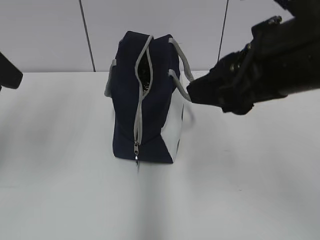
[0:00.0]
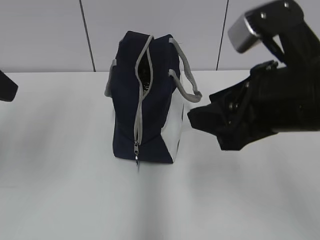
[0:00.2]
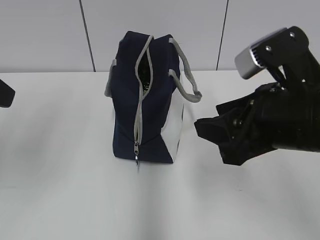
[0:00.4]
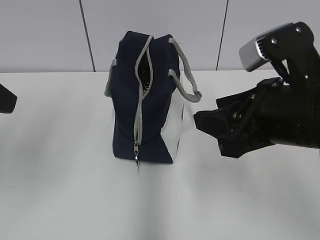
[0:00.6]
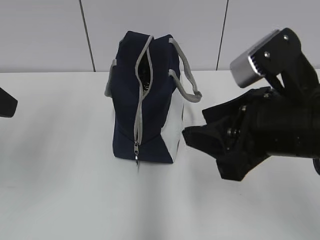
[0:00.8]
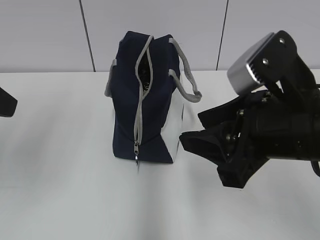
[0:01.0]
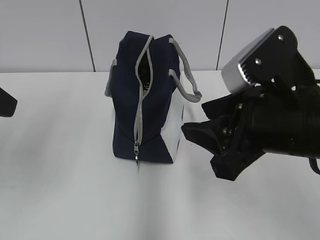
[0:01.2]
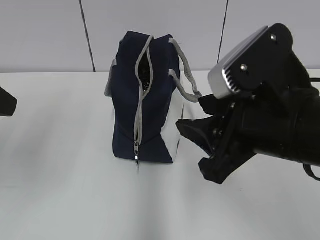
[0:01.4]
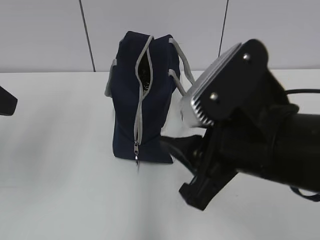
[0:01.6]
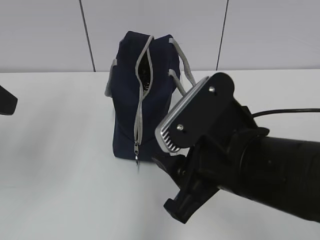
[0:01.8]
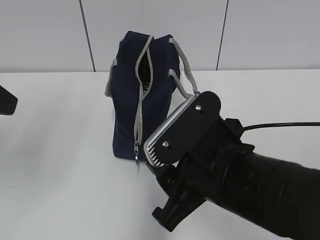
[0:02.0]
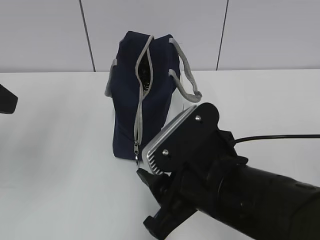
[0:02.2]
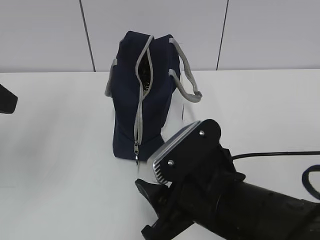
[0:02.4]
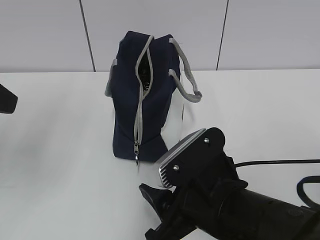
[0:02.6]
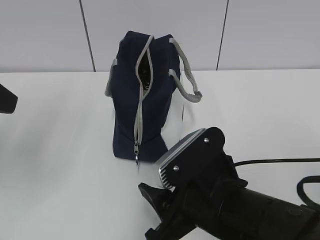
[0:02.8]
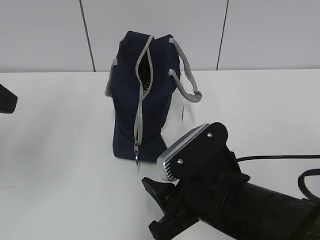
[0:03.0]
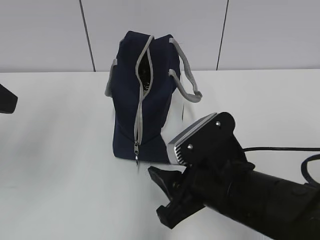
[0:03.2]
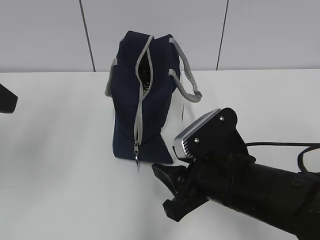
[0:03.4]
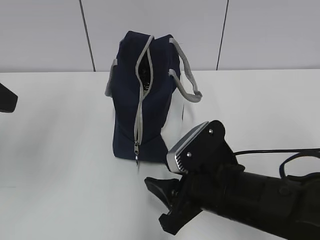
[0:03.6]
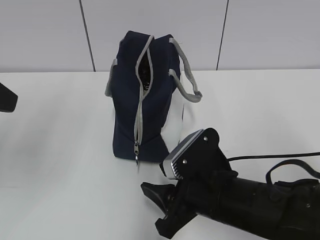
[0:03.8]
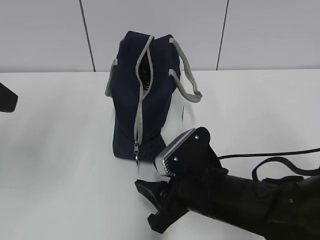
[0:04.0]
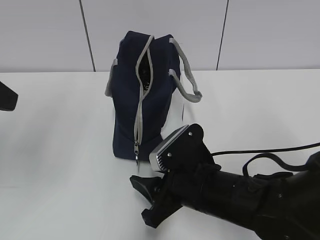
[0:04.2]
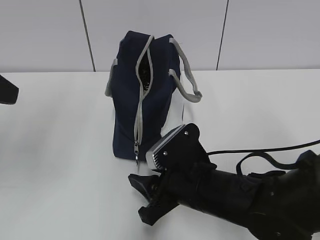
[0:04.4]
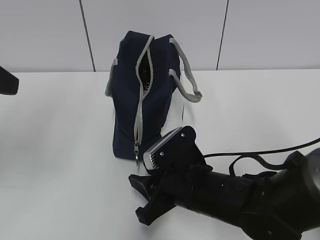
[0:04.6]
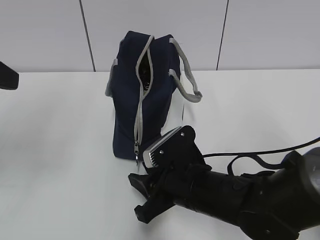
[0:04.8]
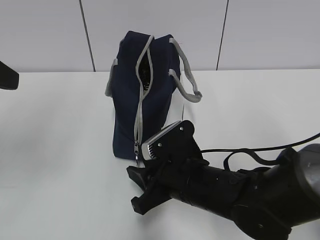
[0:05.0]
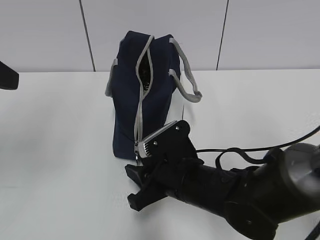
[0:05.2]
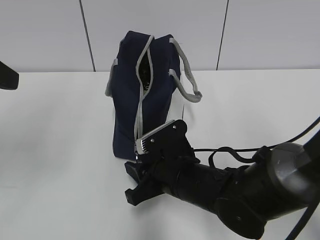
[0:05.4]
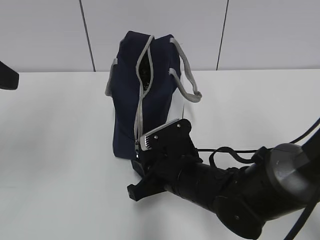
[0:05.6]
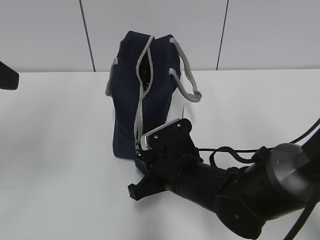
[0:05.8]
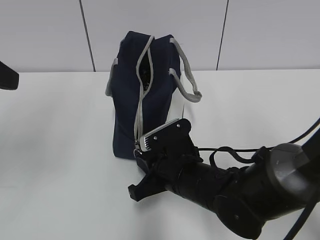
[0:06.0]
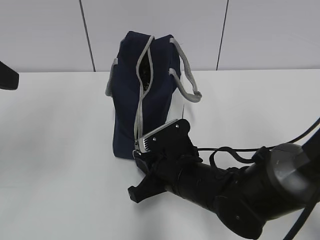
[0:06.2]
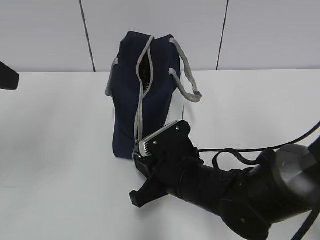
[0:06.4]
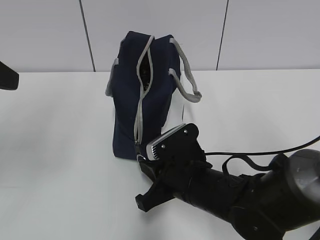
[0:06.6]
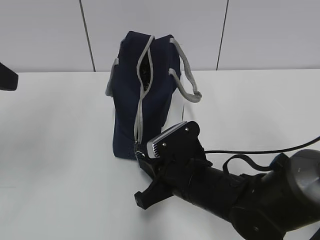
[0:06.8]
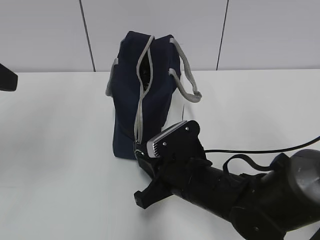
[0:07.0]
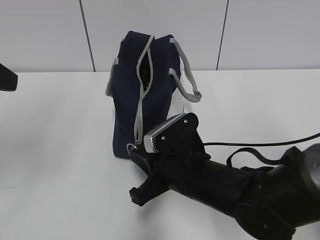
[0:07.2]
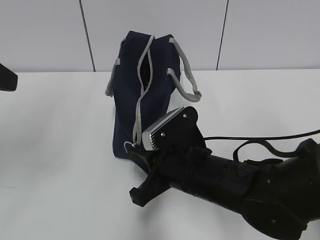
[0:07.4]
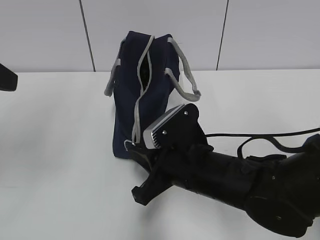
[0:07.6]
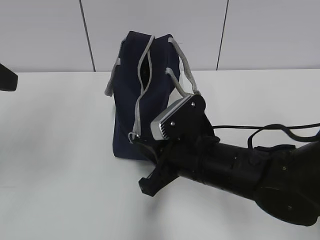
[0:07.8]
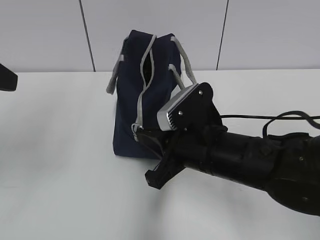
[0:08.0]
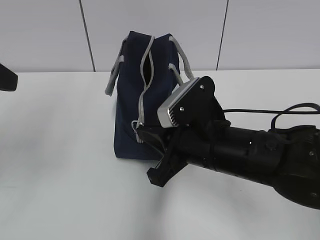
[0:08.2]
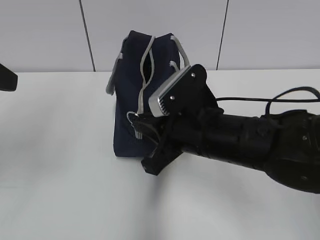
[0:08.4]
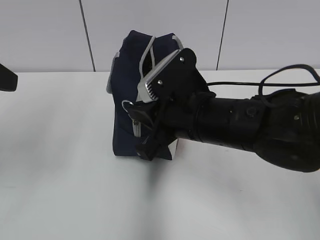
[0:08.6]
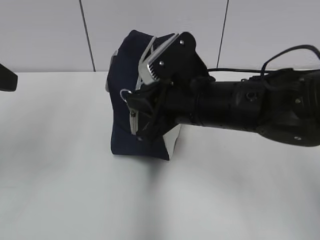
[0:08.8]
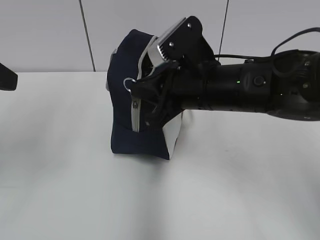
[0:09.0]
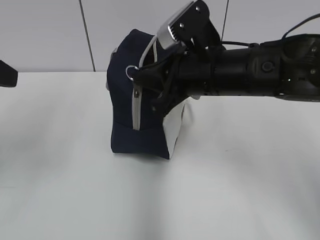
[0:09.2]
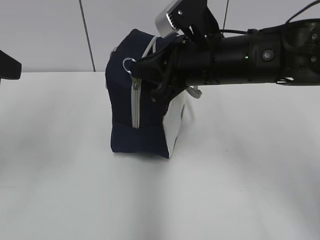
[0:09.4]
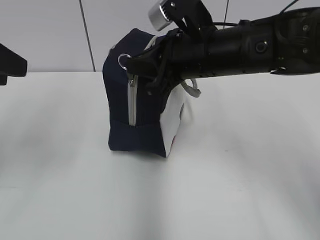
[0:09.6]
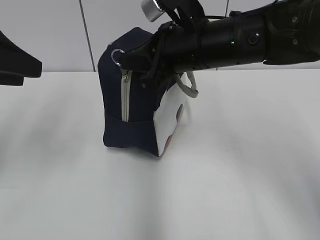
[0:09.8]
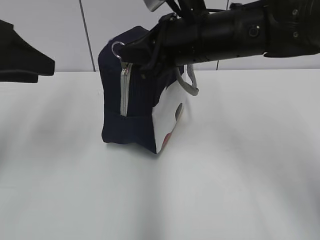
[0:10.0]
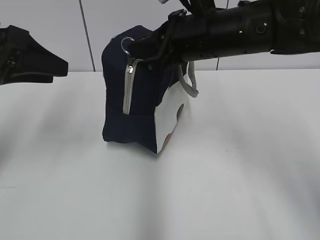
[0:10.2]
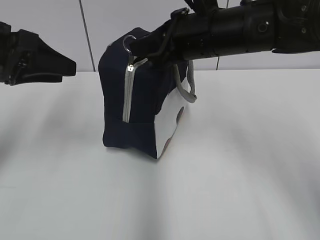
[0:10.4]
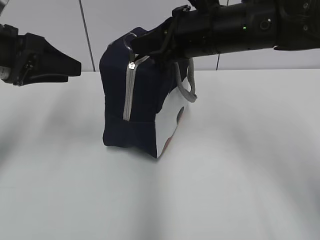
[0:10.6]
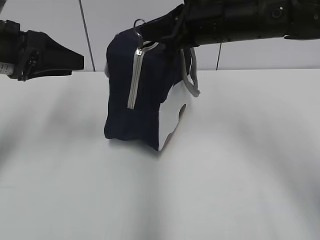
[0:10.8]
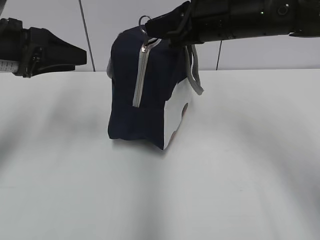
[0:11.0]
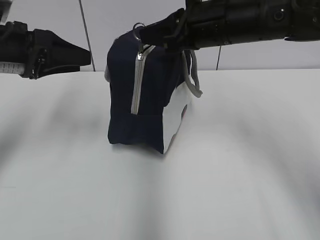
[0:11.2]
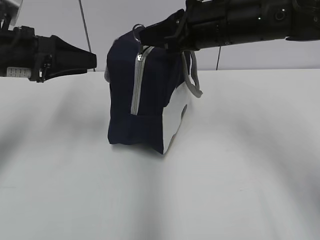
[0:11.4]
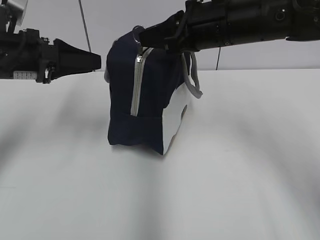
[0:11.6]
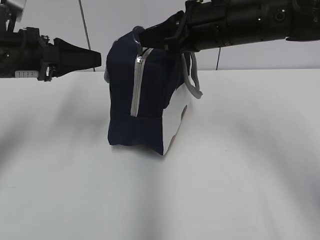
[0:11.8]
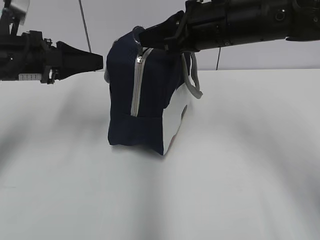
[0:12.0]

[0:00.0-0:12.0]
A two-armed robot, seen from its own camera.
0:00.0 to 0:01.6: The right gripper is displaced downward by some 5 cm.
0:01.6 to 0:03.0: The right gripper is displaced downward by some 10 cm.
0:03.0 to 0:04.4: The right gripper heads forward and downward, covering about 10 cm.
0:04.4 to 0:06.0: The right gripper closes its fingers.
0:06.0 to 0:07.6: The right gripper shifts by approximately 5 cm.
0:07.6 to 0:09.0: The right gripper shifts about 10 cm upward and forward.
0:09.0 to 0:10.4: The right gripper shifts some 5 cm forward, while the left gripper moves forward and downward, some 10 cm.
0:10.4 to 0:12.0: The left gripper changes place by roughly 5 cm.

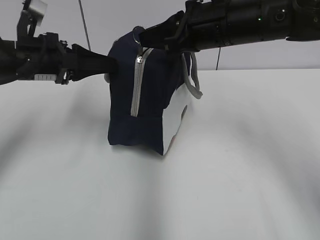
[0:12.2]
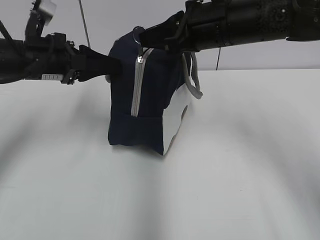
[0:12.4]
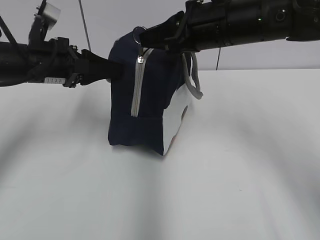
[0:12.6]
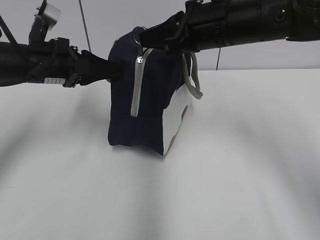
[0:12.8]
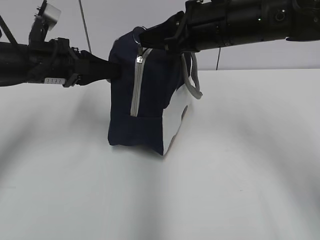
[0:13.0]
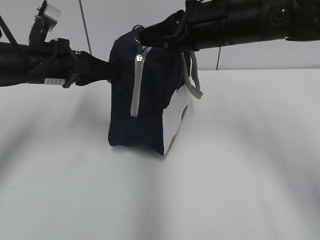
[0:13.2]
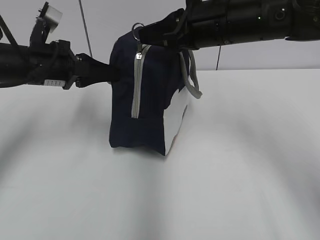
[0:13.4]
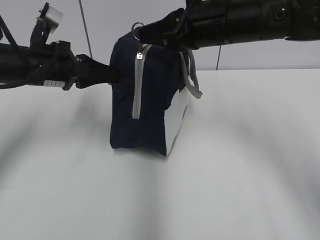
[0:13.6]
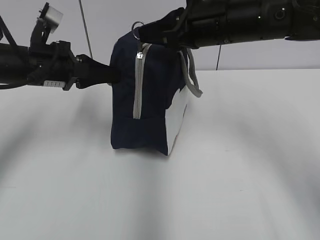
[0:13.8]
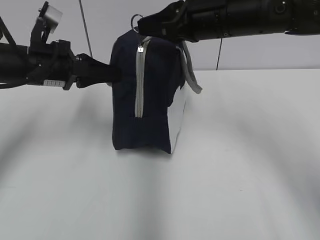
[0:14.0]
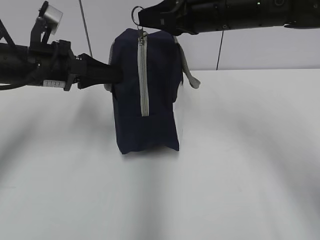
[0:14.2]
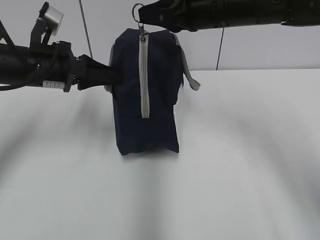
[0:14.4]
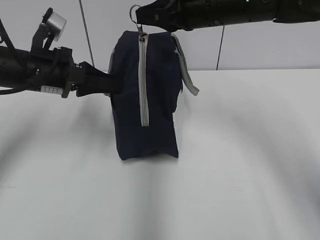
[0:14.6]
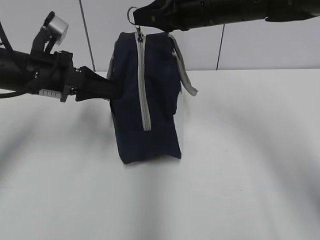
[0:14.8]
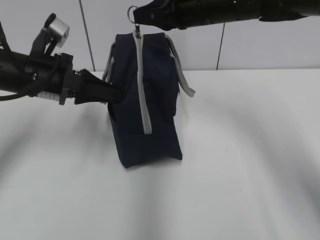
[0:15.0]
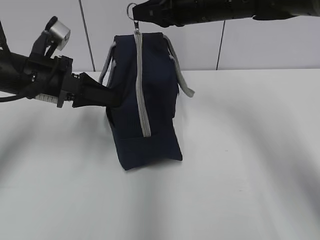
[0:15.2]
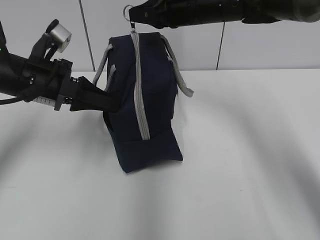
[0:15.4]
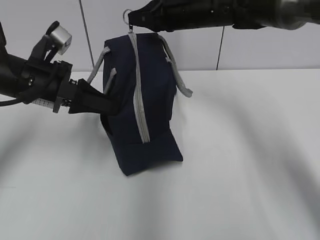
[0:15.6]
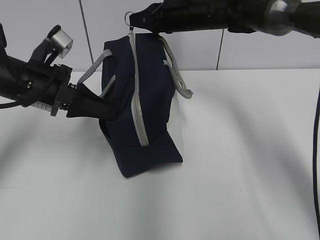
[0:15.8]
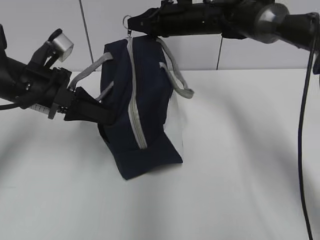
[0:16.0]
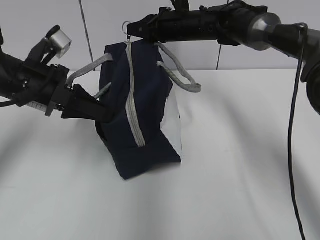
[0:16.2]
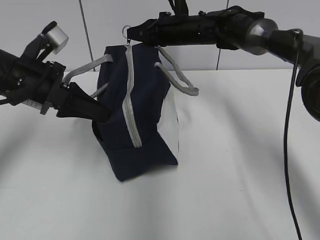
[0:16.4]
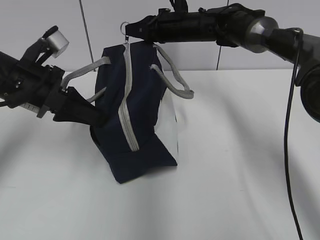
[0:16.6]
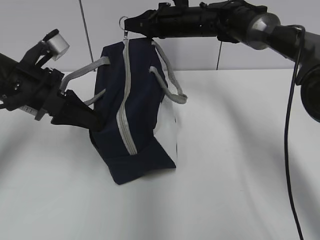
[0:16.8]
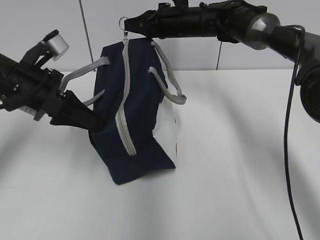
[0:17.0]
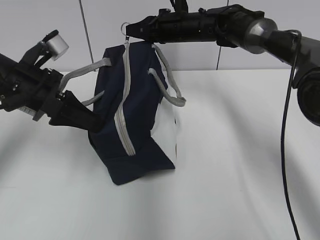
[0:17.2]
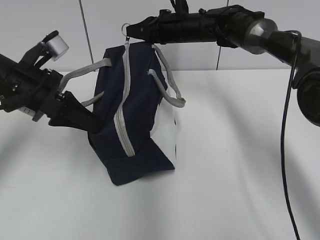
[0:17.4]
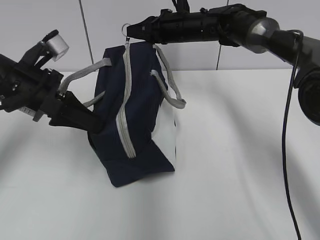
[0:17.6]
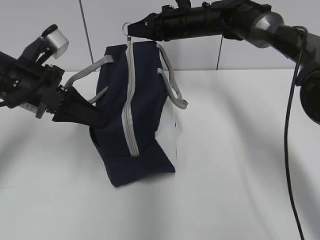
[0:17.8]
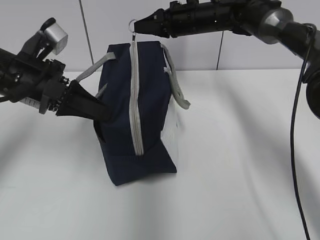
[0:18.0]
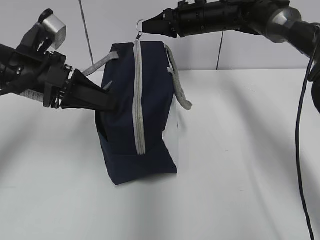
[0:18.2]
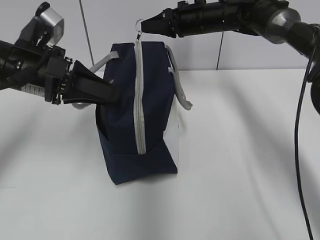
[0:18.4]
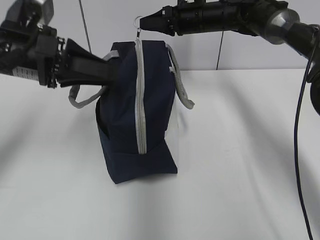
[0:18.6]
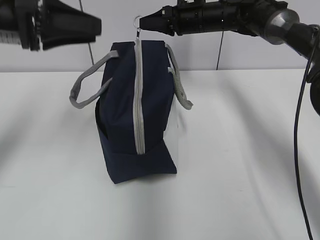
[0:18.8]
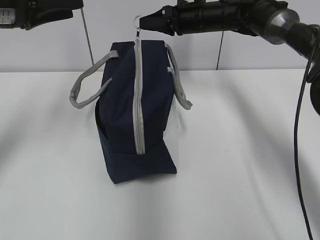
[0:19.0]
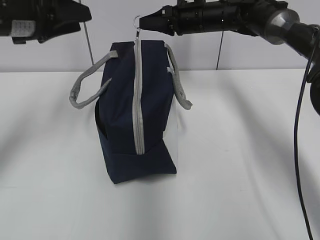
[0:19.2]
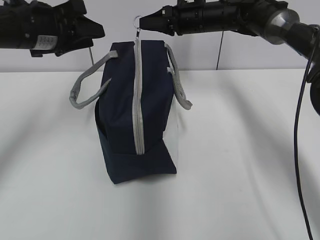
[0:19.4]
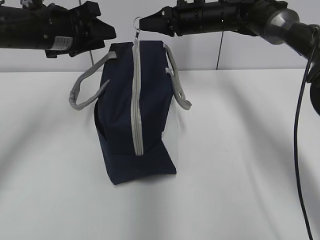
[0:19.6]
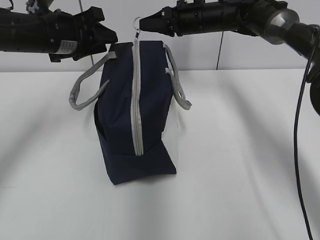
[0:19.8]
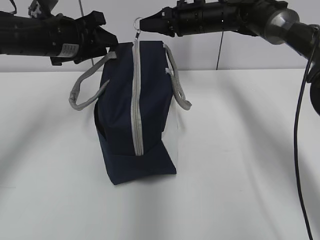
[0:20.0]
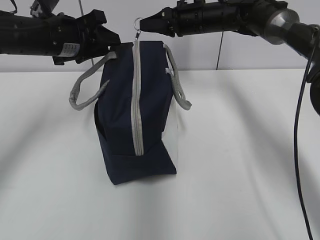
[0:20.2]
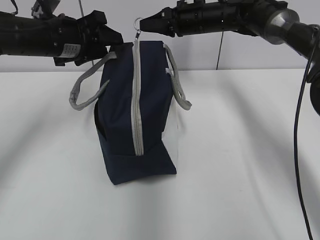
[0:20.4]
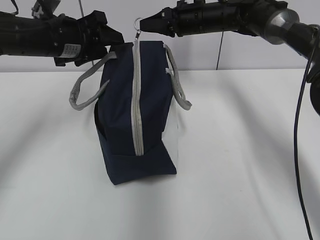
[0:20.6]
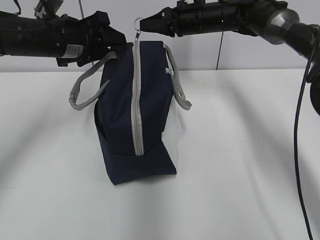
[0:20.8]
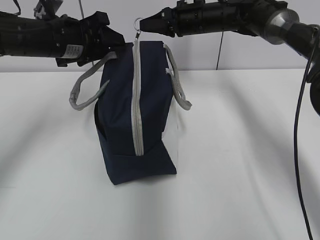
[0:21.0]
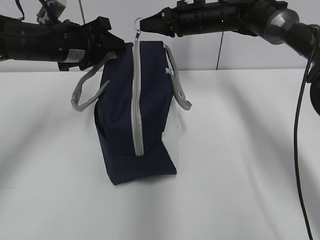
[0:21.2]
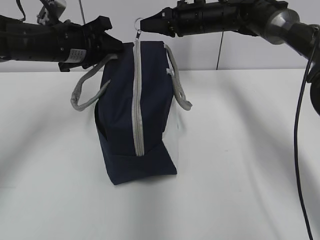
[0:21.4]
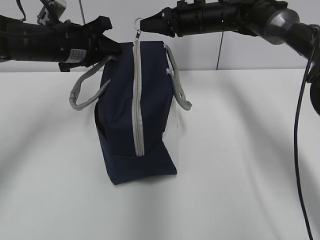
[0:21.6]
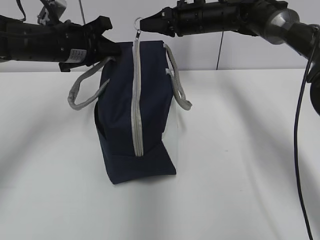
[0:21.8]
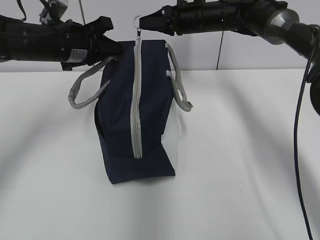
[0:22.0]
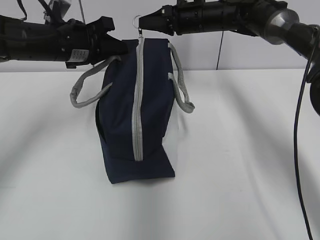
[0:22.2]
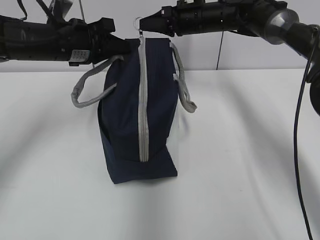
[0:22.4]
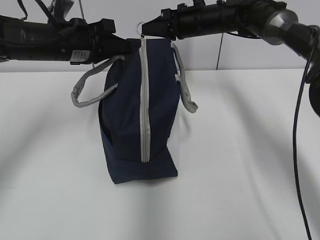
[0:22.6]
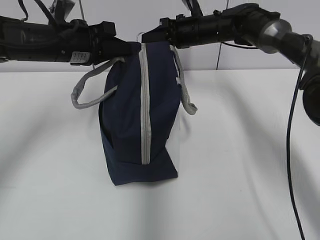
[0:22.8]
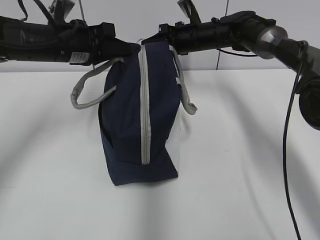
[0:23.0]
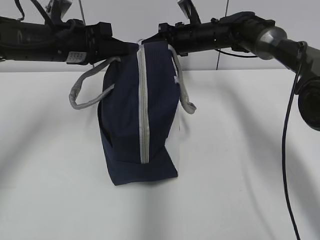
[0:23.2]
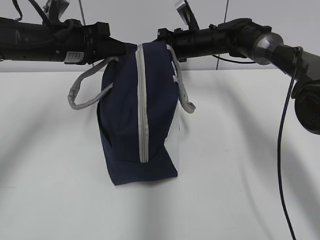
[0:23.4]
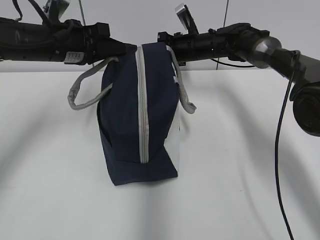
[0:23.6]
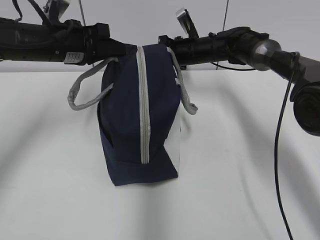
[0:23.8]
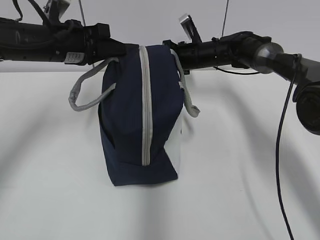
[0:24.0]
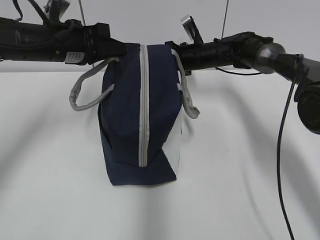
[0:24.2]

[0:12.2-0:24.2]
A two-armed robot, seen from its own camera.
Step, 0:12.2 to 0:18.2: Grab the lunch bag with your left hand.
0:12.2 to 0:13.8: The left gripper closes its fingers.
0:13.8 to 0:15.2: The right gripper is displaced forward by roughly 10 cm.
0:15.2 to 0:16.6: The right gripper heads forward and downward, covering approximately 10 cm.
0:16.6 to 0:18.2: The left gripper opens its fingers.
0:18.2 to 0:19.8: The left gripper goes some 10 cm forward.
0:19.8 to 0:21.2: The grippers move only a little.
0:21.2 to 0:22.6: The left gripper closes up.
0:22.6 to 0:24.2: The right gripper travels downward by approximately 10 cm.
